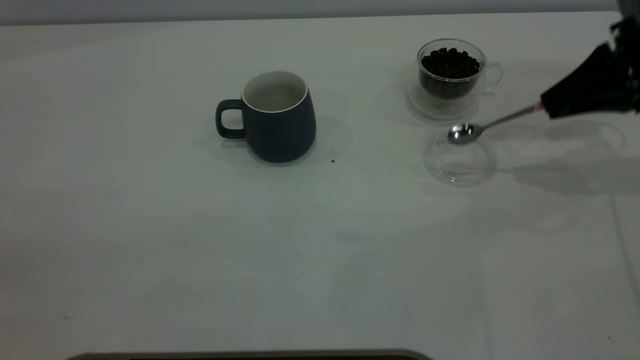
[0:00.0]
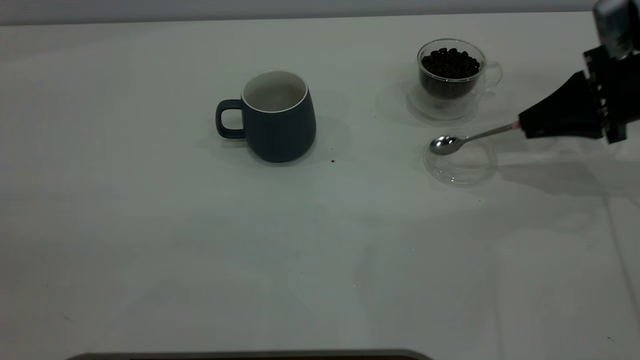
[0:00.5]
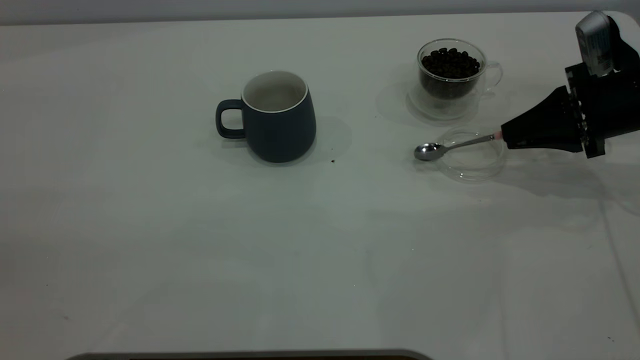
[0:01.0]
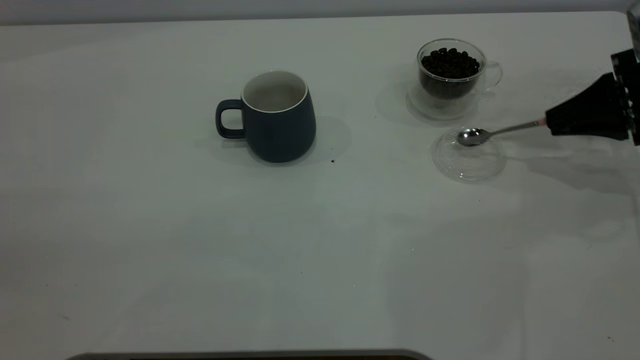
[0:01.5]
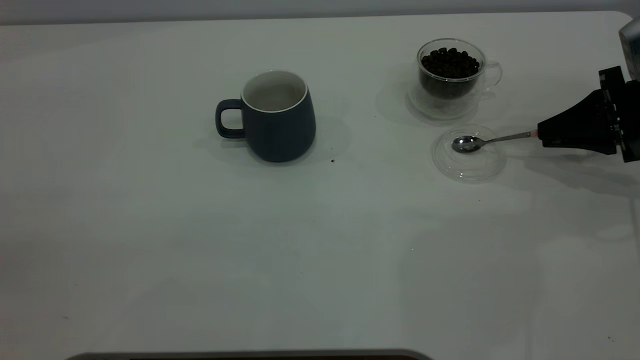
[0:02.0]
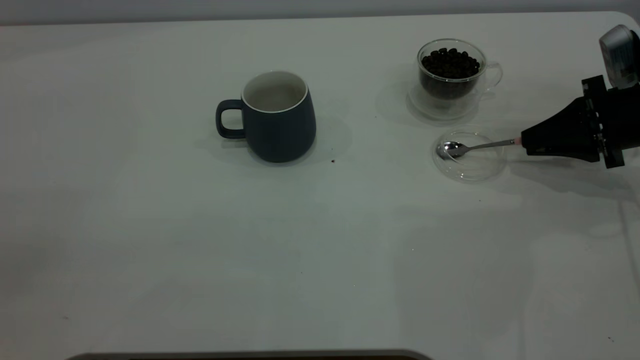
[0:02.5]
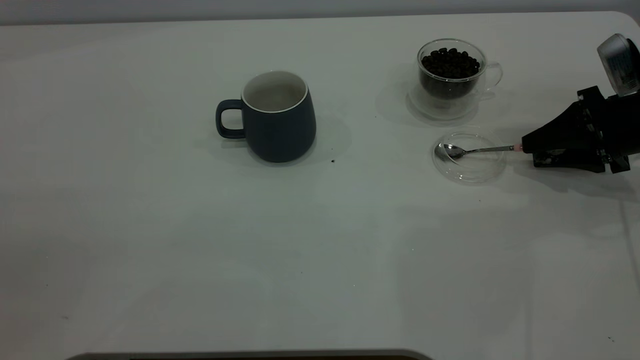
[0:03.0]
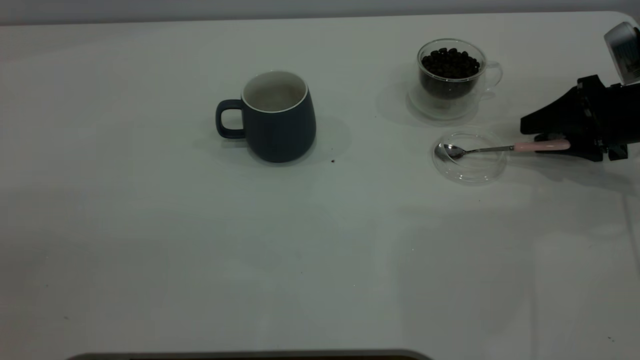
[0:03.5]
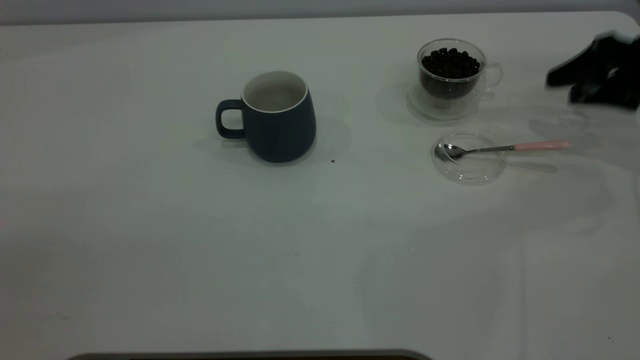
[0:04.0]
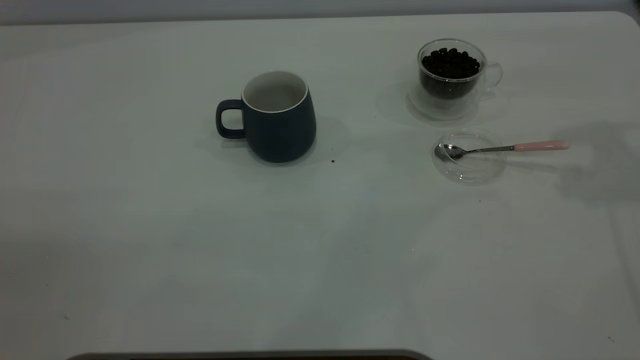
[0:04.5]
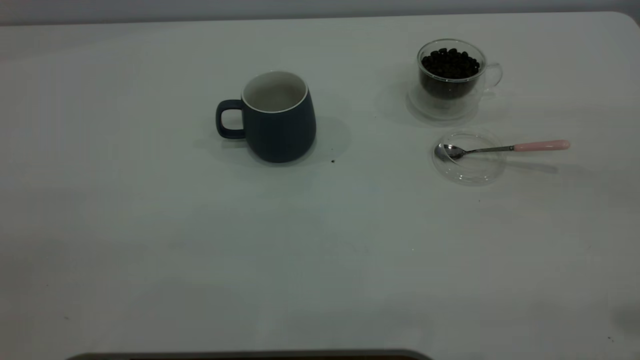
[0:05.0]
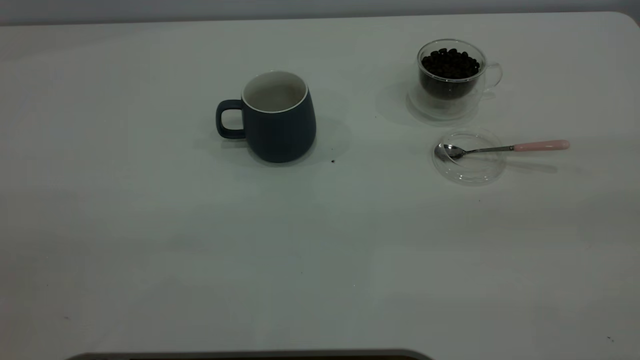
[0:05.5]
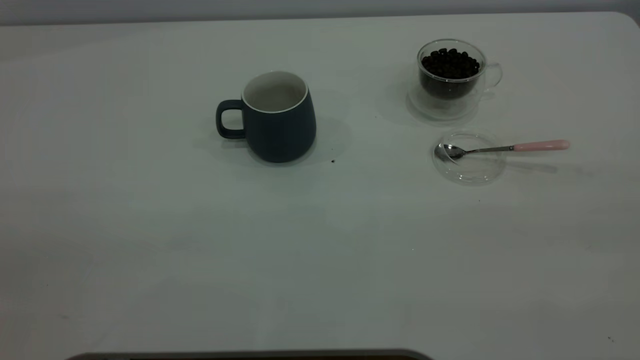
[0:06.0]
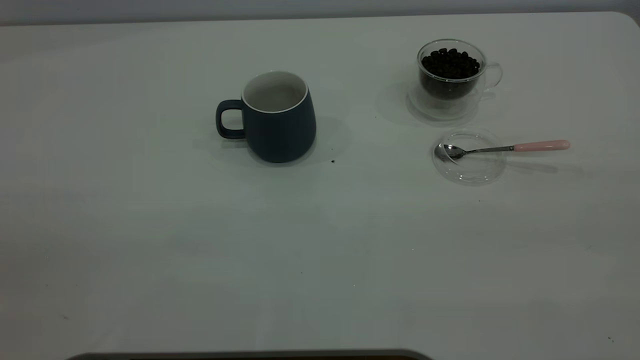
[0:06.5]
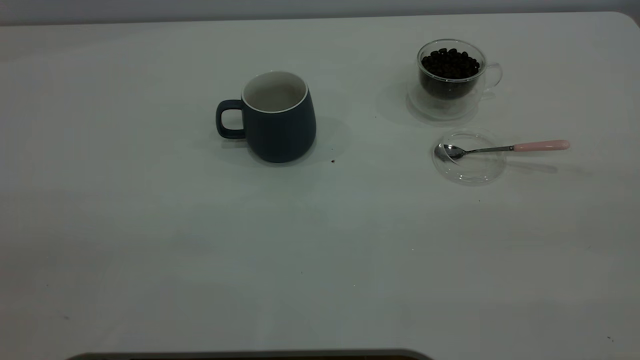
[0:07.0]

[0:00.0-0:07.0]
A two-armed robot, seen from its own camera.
Task of the whole recording: the left gripper place the grey cup in the center of the table, the right gripper take the pink spoon from the cup lid and scoop out the coffee beans from the coffee cup and put them into the grey cup, the right gripper put the spoon back into the cup lid.
Step, 0:00.0 to 0:03.5: Place the spoon back in its original place.
0:00.0 to 0:02.0: The right gripper travels downward by some 5 cm.
0:02.0 to 0:03.5: The right gripper opens.
0:03.5 to 0:05.0: The right gripper goes approximately 40 cm upward and backward.
